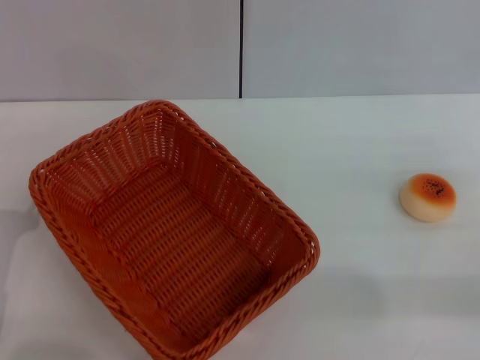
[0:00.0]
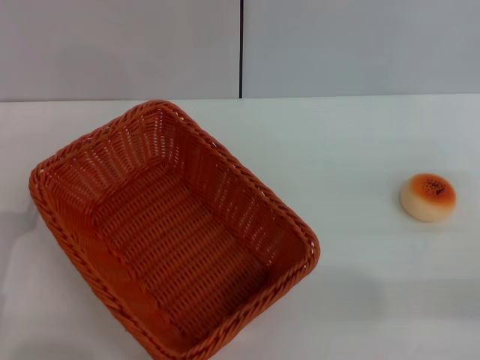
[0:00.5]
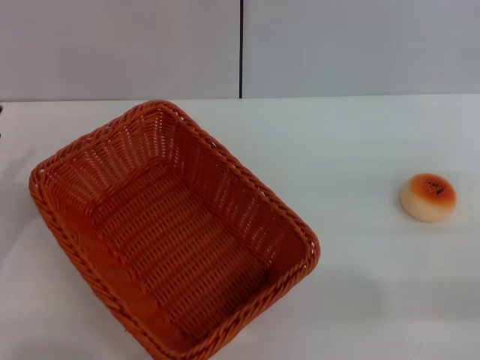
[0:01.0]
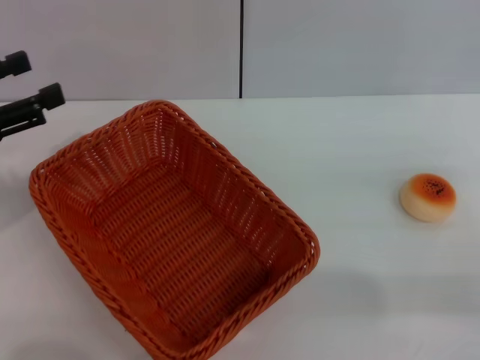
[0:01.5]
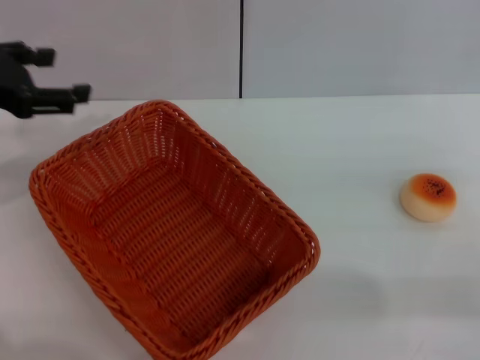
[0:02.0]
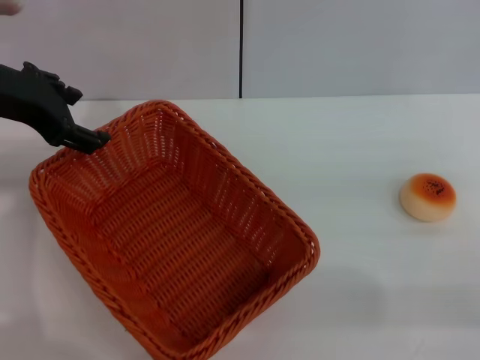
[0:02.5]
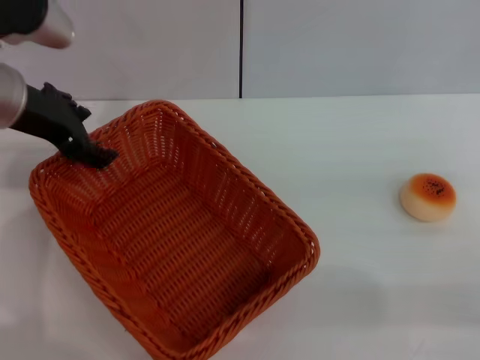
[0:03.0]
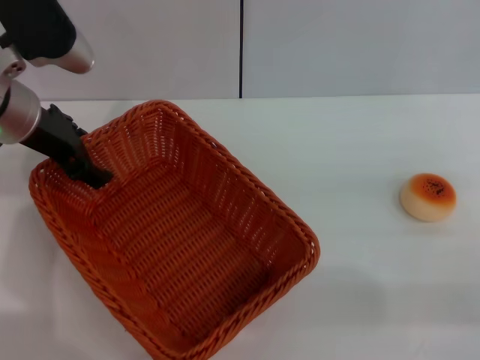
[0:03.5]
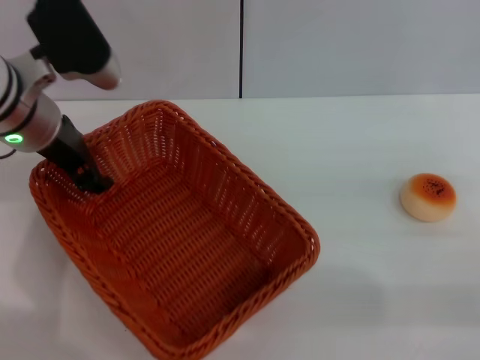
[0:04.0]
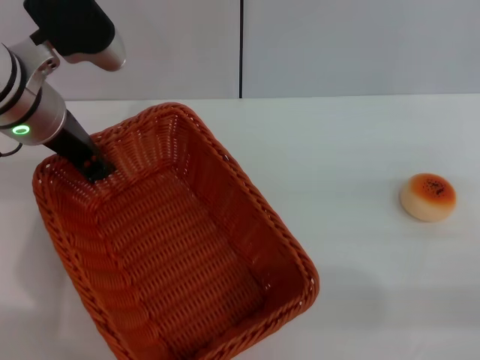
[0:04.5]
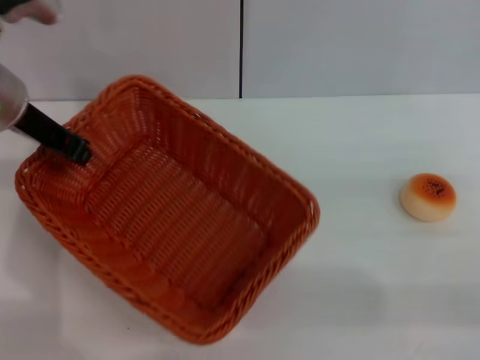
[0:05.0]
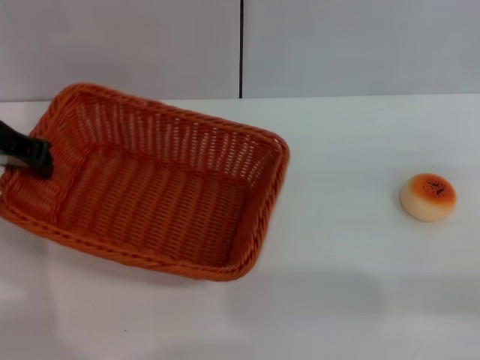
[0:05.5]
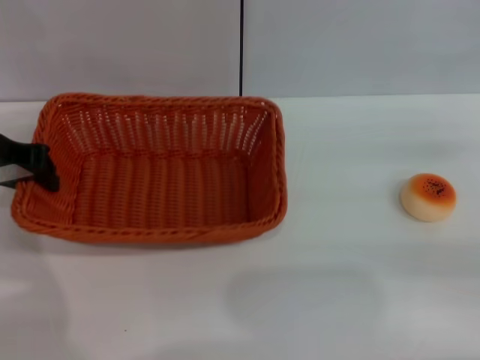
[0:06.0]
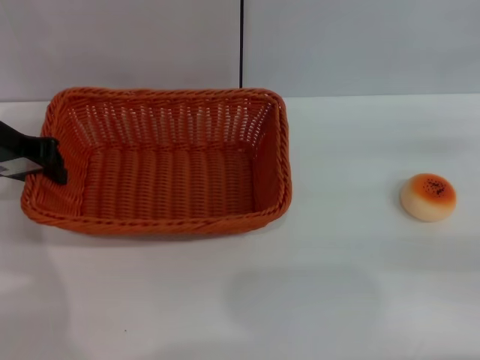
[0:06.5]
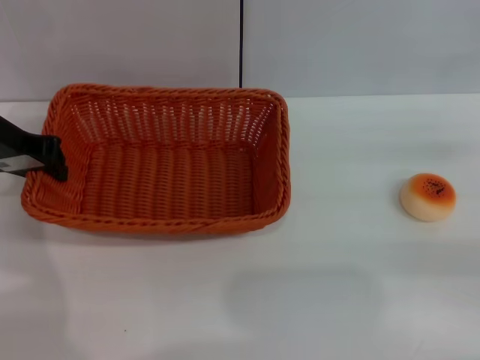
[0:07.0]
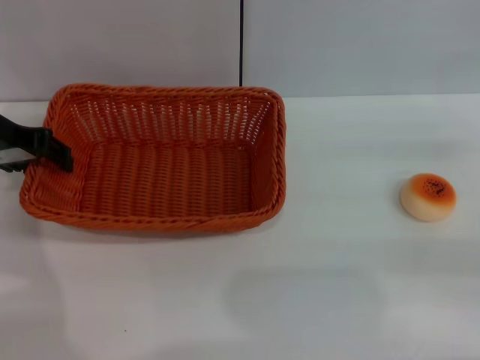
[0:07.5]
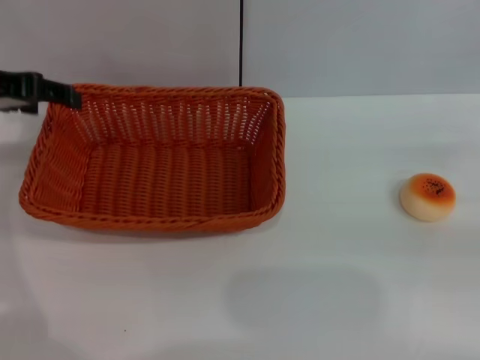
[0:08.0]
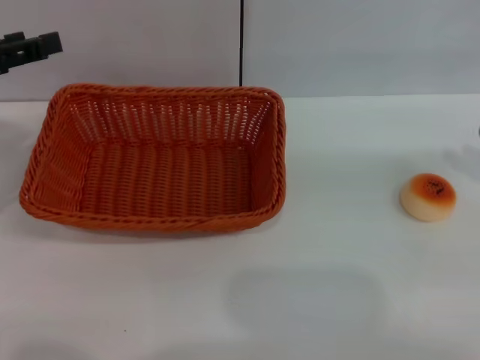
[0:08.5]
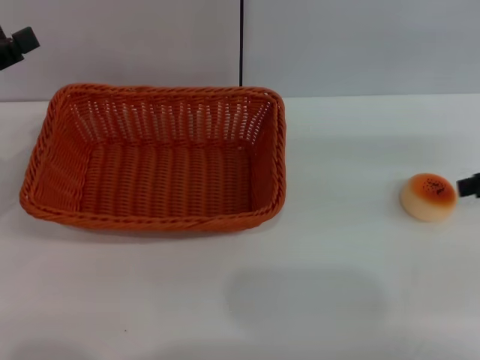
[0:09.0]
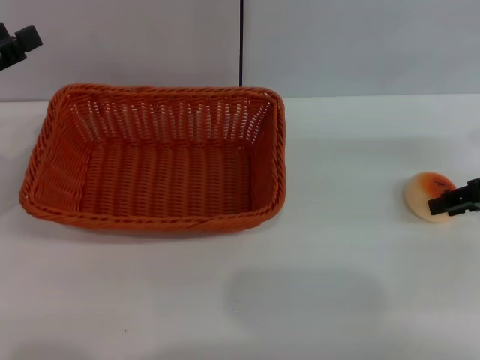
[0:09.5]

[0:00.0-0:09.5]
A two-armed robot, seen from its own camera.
Step, 0:00.0 to 0:07.5: Move the basket to the center of view with the left gripper.
0:00.0 to 0:02.0: The left gripper heads upward and forward, covering some 25 cm.
0:02.0 to 0:04.0: The left gripper is displaced to the right by about 10 cm.
0:04.0 to 0:05.5: The left gripper heads to the left, covering about 5 cm, and closes up.
0:05.5 to 0:07.5: The grippers move only a little.
0:07.5 to 0:09.5: The left gripper travels backward and to the left by roughly 10 cm, and opens up, while the right gripper shifts approximately 5 cm forward.

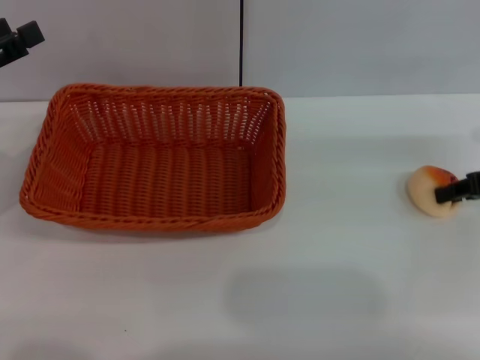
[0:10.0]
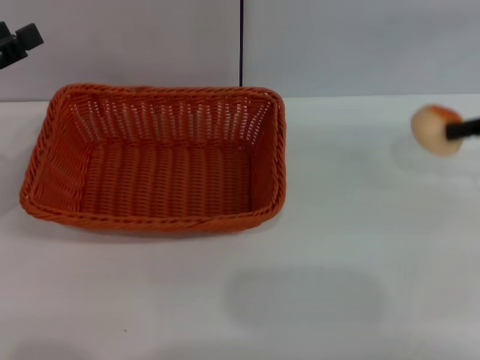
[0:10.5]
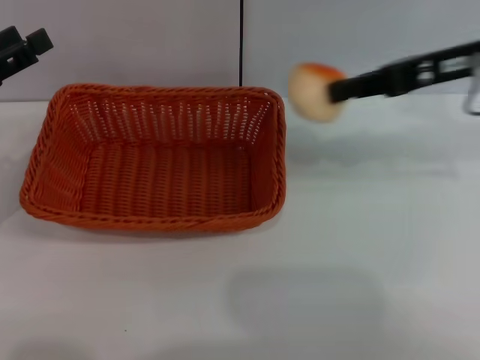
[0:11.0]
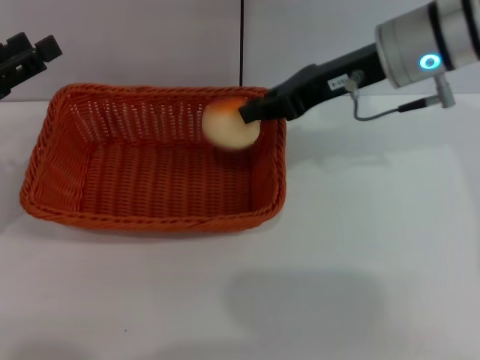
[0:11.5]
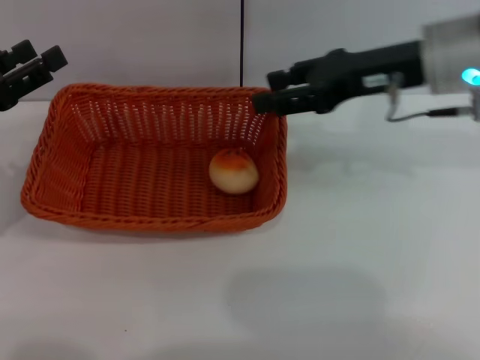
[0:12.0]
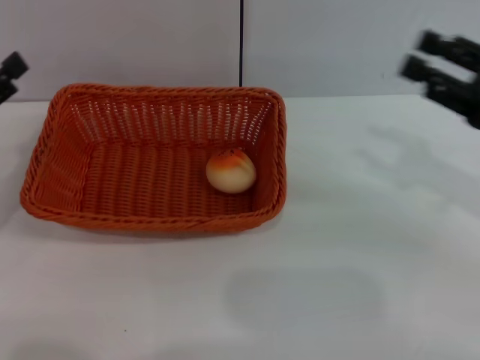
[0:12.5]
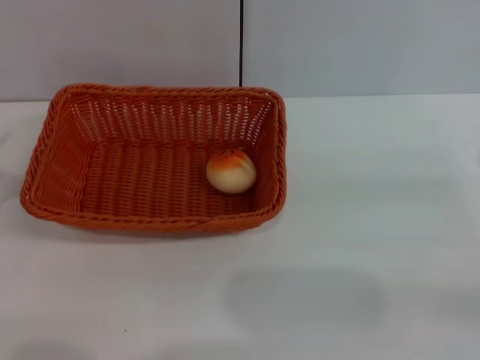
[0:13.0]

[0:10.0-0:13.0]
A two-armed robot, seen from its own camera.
Step, 0:10.5 to 0:11.5: Place the egg yolk pastry into the basket with the right gripper.
0:10.0 to 0:11.5: The right gripper moves to the left and upward, roughly 20 cm, and closes its fingers.
0:11.5 to 0:13.0: The left gripper goes about 10 cm downward and backward. The right gripper heads to the right, backward and downward, covering about 30 cm, and opens its fingers.

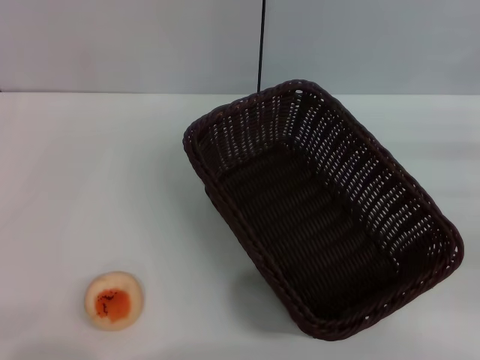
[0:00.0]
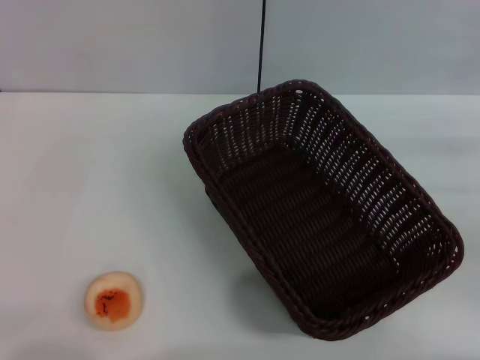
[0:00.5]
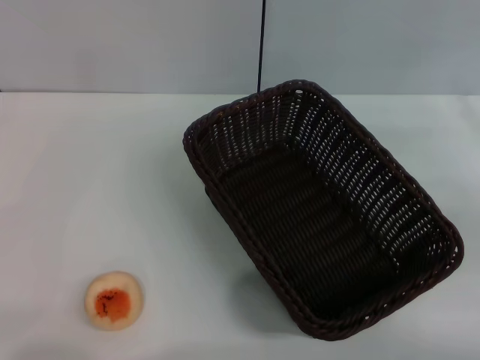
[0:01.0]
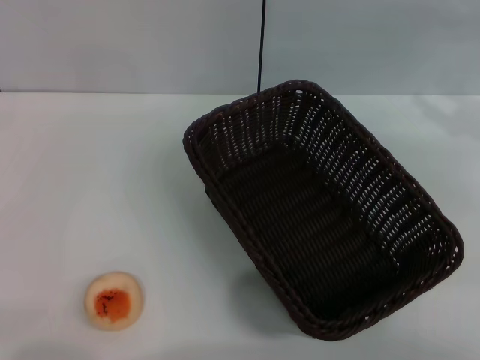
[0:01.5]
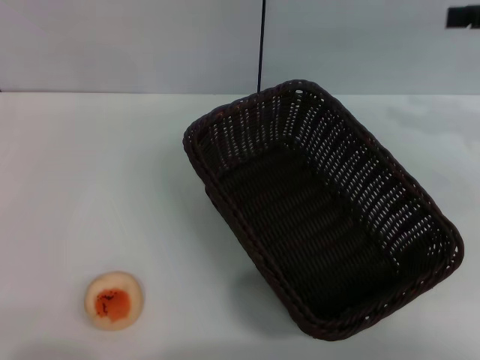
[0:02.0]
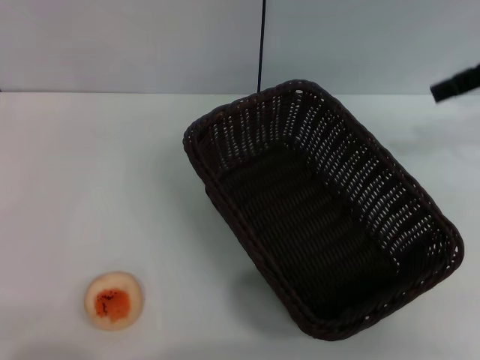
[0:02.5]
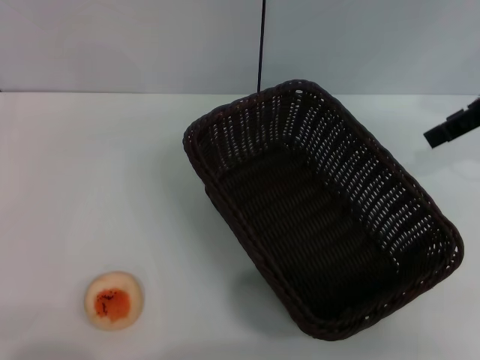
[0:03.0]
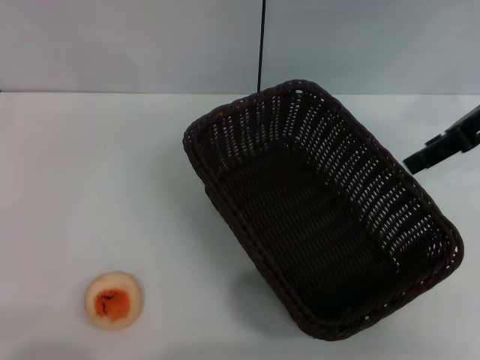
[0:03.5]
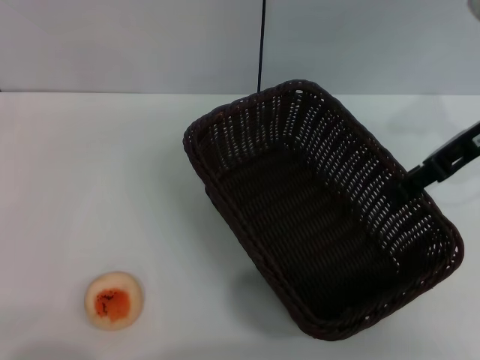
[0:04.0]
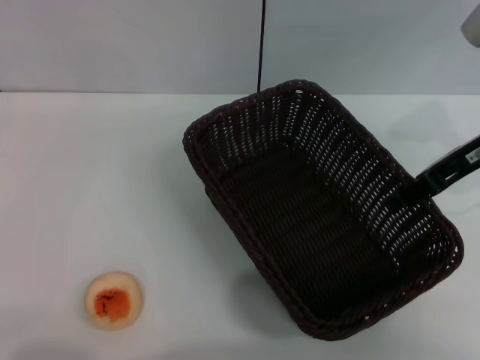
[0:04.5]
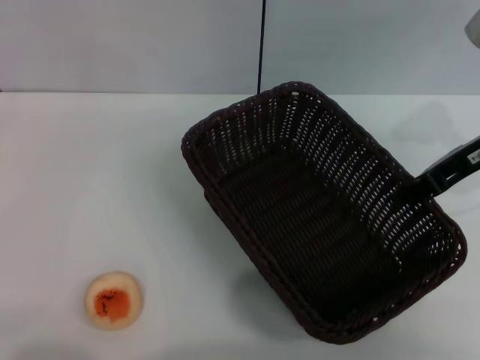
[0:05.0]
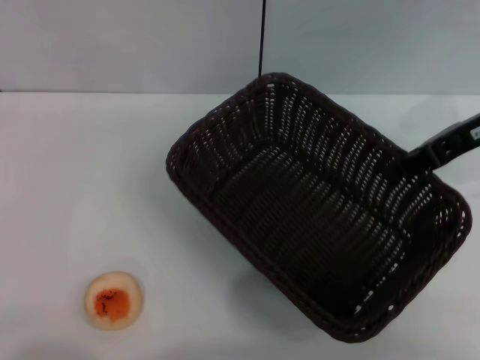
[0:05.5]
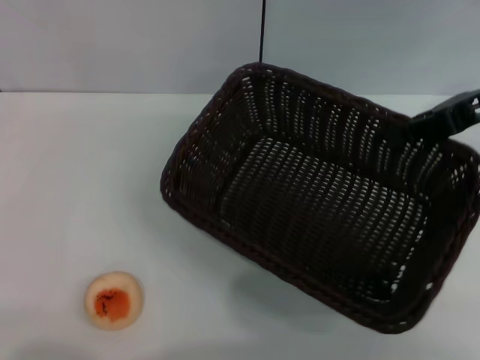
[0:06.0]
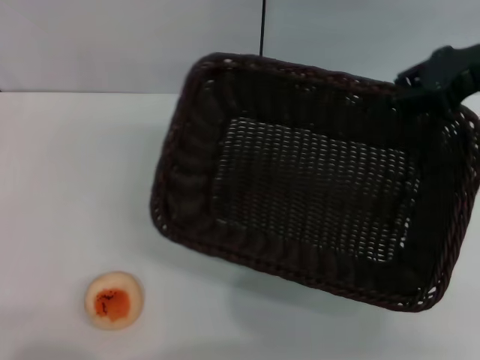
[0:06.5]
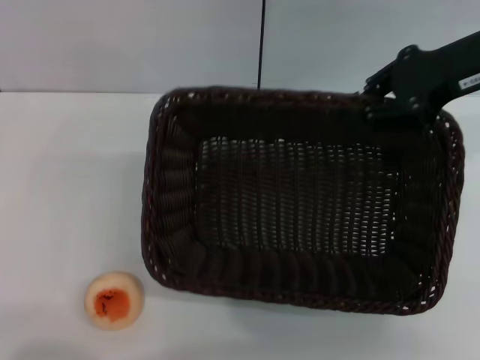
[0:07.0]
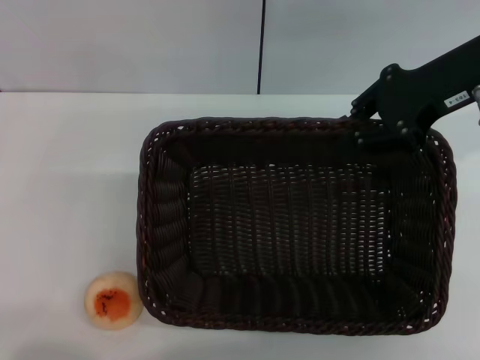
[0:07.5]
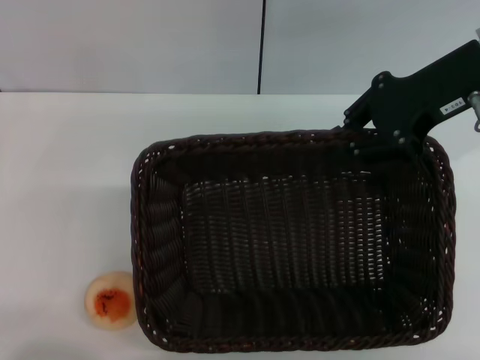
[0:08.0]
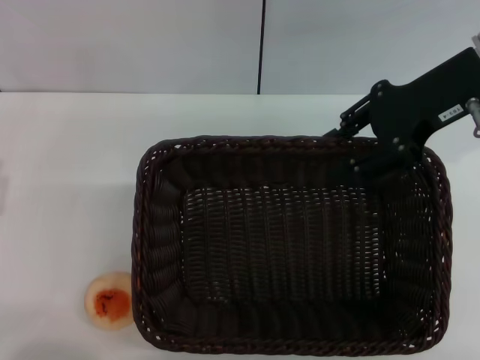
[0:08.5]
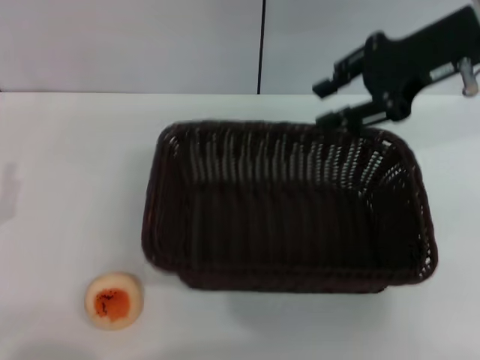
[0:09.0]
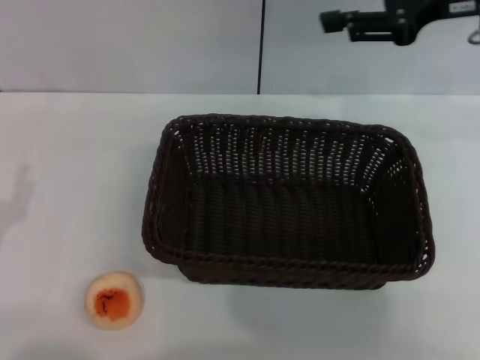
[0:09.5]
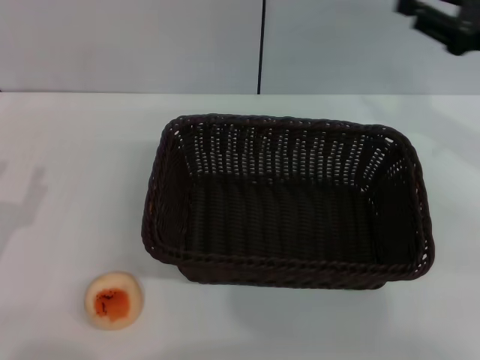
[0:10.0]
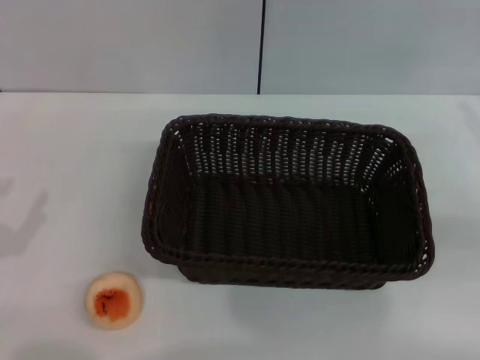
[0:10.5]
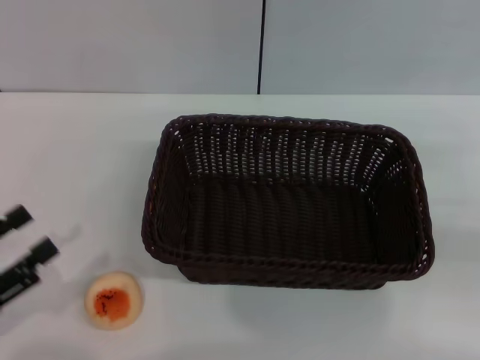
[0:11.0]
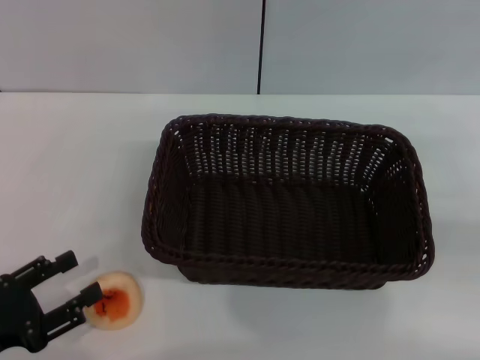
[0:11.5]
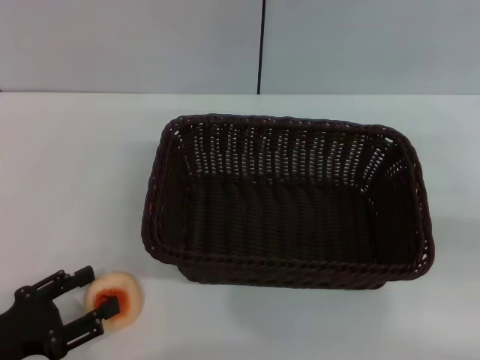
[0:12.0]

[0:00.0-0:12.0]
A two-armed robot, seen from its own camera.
Step, 0:00.0 to 0:09.0: Move the basket to the center of view with the right gripper.
0:00.0 to 0:02.0: The right gripper shifts approximately 20 cm upward and forward.
0:02.0 to 0:04.0: The right gripper heads to the left and downward, covering approximately 10 cm.
0:04.0 to 0:06.0: The right gripper closes up.
0:06.0 to 0:08.0: The right gripper is displaced to the left by approximately 5 cm.
0:08.0 to 0:10.0: The right gripper shifts roughly 10 cm to the right and downward, and opens its fingers.
0:10.0 to 0:12.0: The right gripper moves to the right and backward, approximately 10 cm.

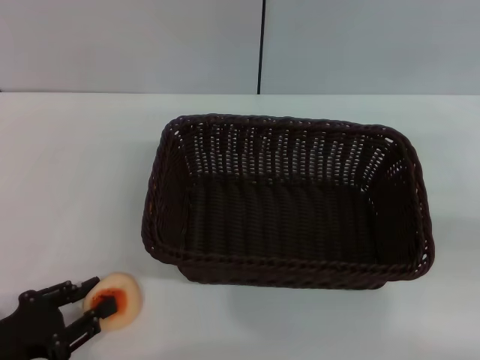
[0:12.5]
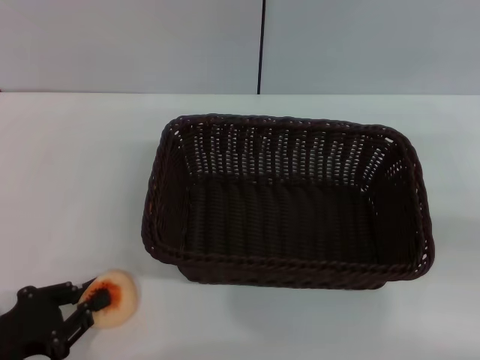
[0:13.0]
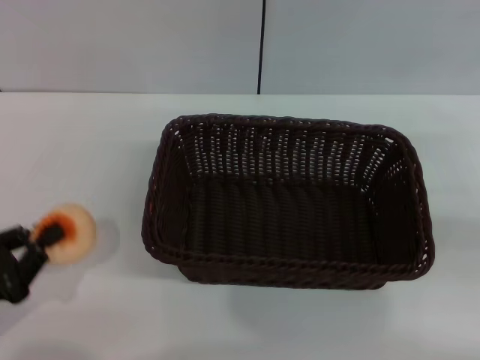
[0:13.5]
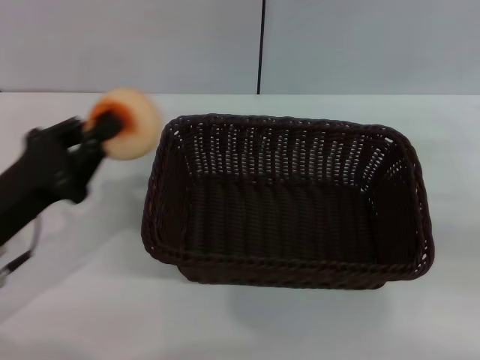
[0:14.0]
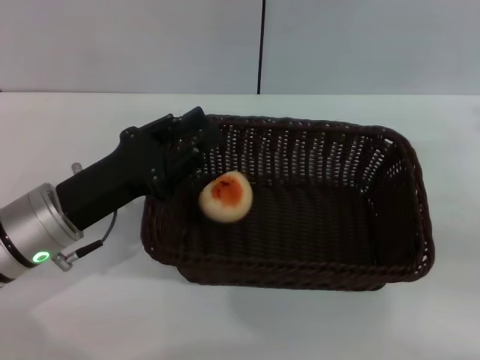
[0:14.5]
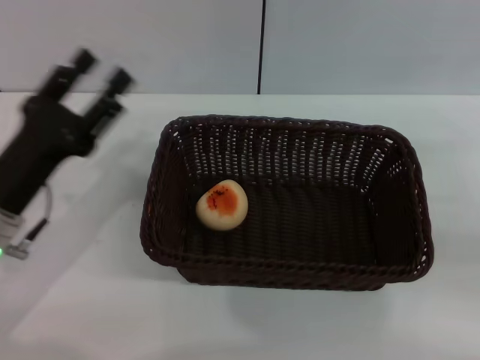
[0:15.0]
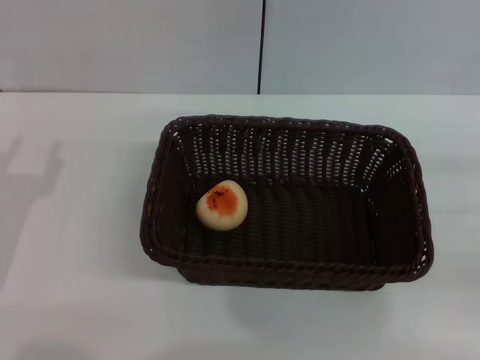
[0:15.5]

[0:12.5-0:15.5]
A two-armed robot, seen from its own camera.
Step, 0:14.0 to 0:14.5: Place the egg yolk pastry into the basket with the left gripper.
0:12.5 to 0:14.0: The left gripper heads forward and upward, covering roughly 10 cm, and closes up.
0:14.0 to 0:15.5: The left gripper opens.
